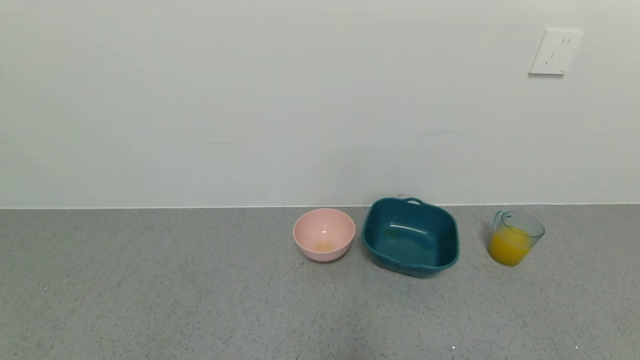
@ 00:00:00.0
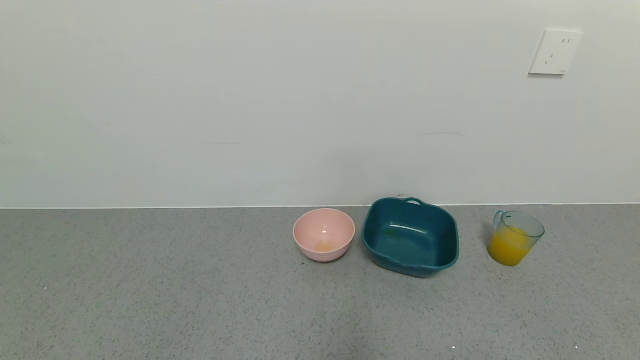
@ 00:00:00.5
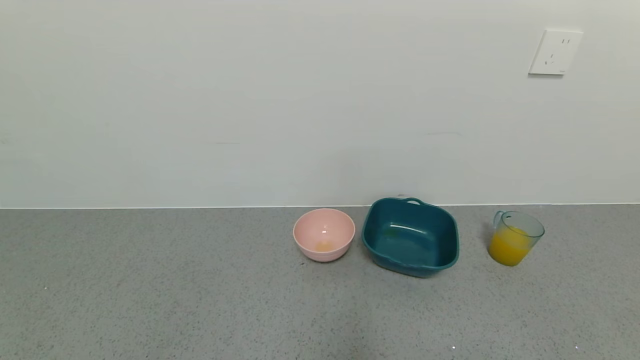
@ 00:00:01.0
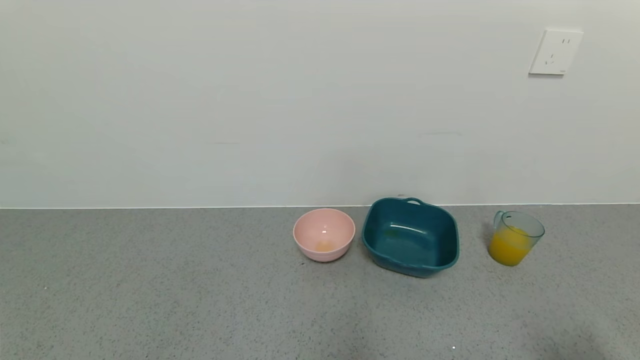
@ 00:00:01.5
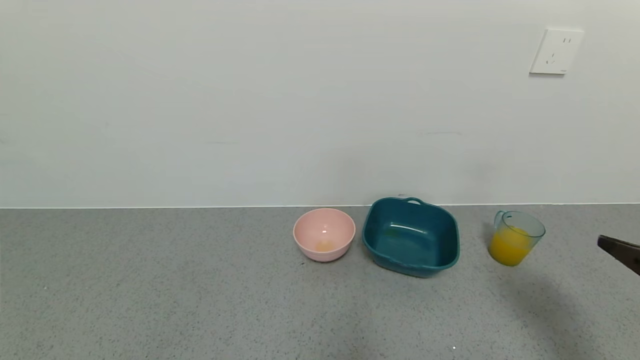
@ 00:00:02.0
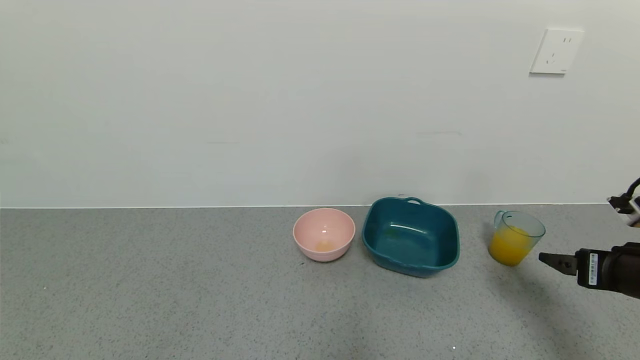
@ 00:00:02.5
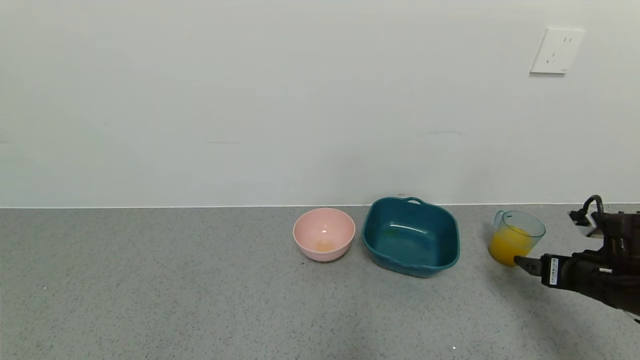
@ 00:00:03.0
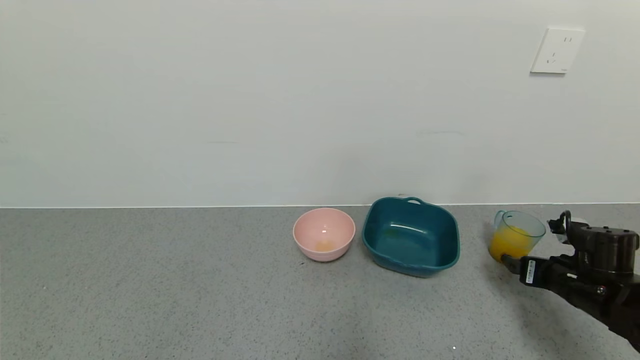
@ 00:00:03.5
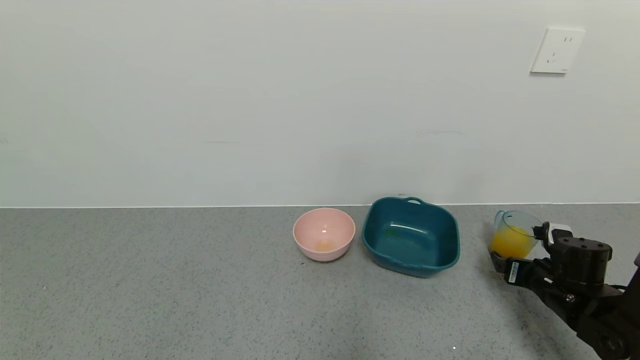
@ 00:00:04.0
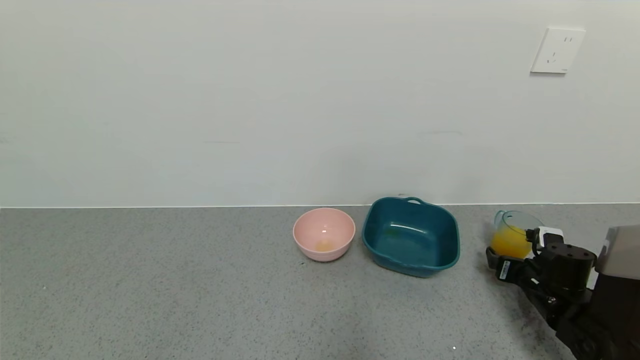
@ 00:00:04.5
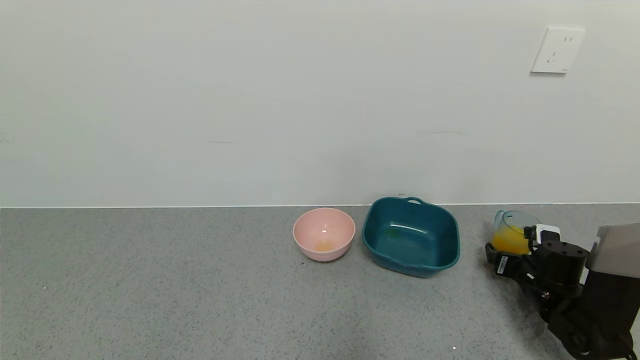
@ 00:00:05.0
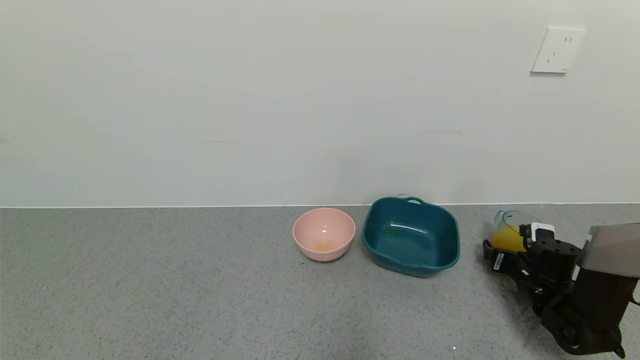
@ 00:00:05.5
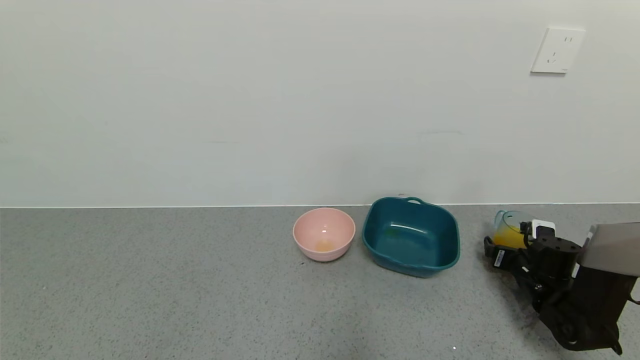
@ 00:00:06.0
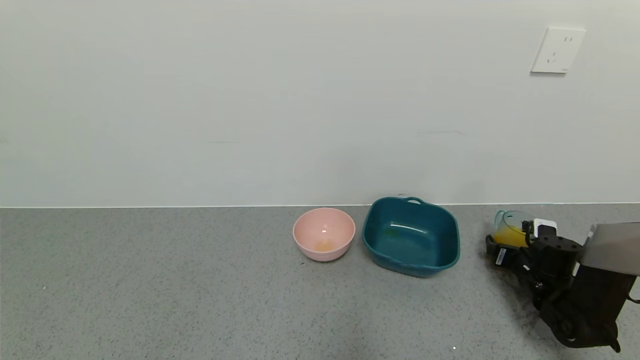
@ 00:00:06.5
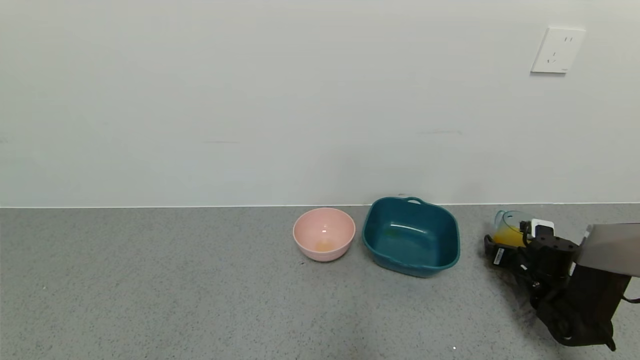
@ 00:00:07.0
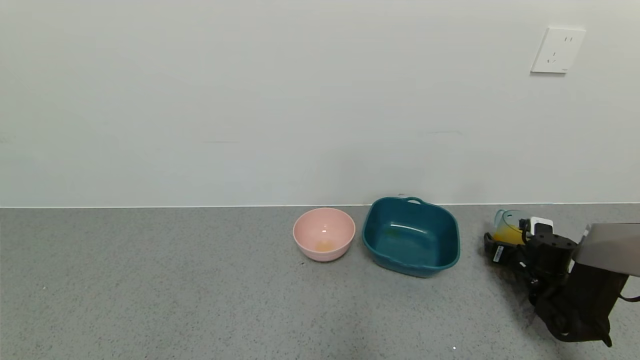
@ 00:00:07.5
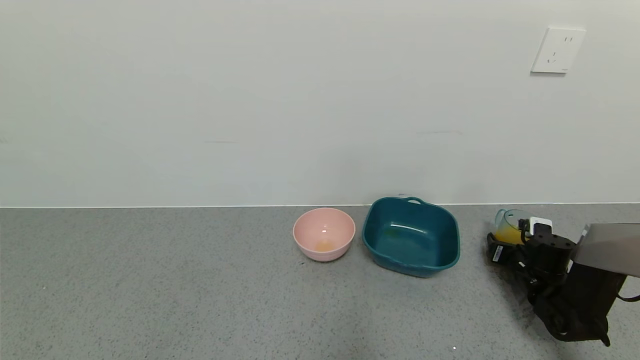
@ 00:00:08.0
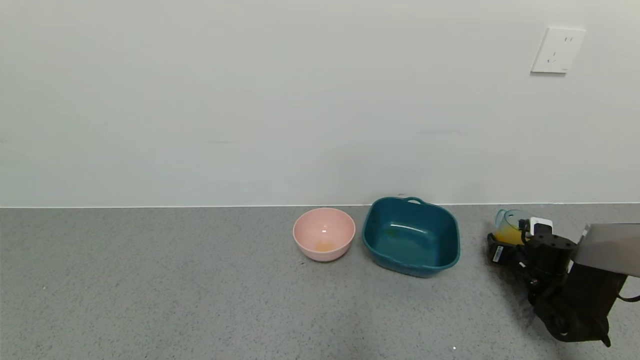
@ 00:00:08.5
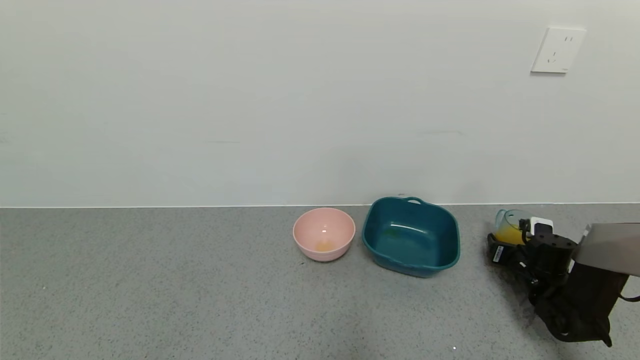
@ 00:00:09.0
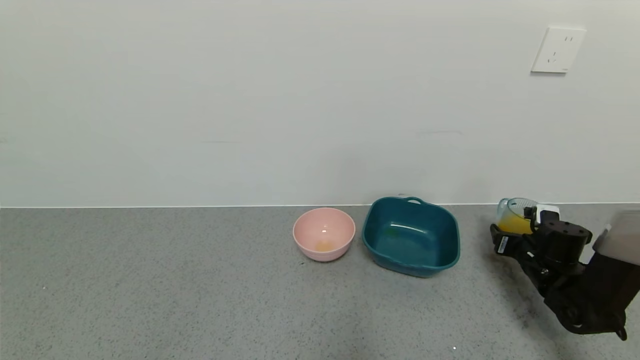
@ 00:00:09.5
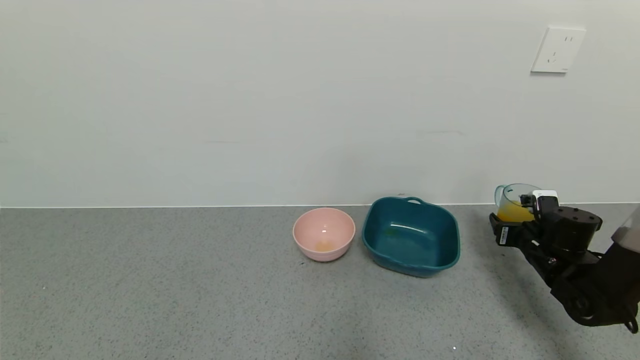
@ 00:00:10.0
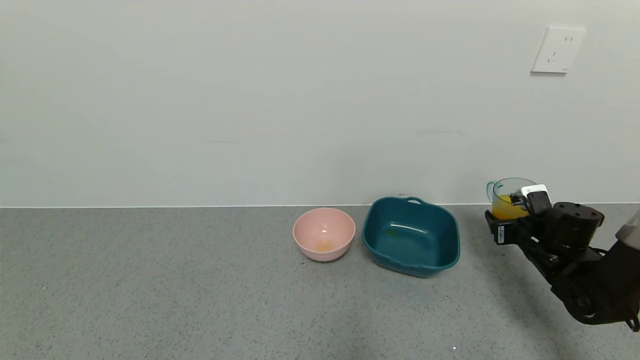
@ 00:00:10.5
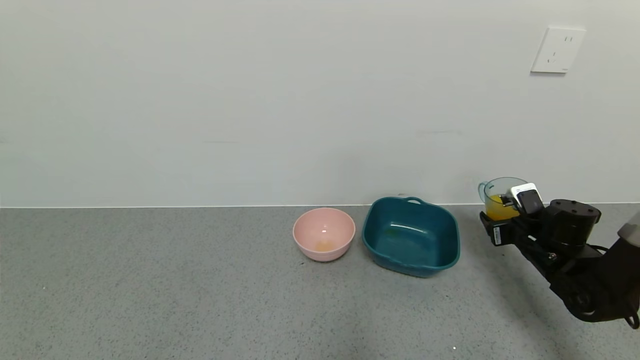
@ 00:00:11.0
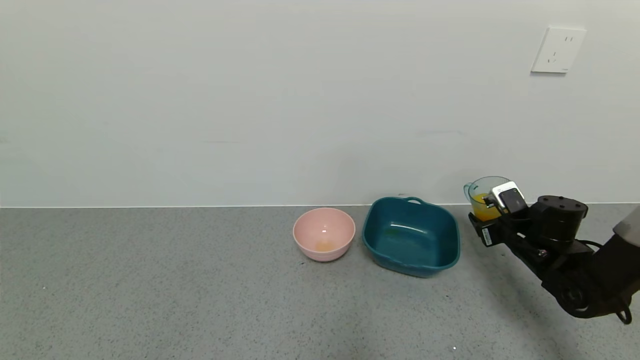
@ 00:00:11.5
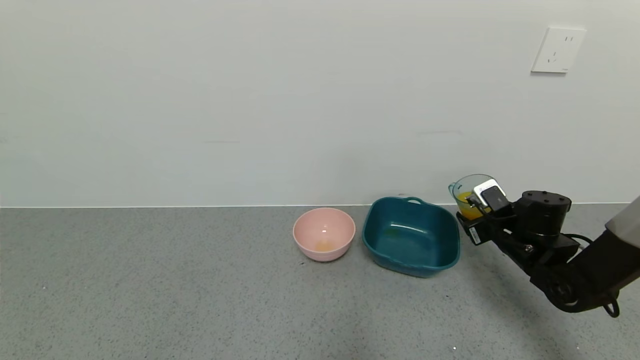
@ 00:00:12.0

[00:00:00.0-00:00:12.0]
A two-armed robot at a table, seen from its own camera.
Task of the whole recording: use a gripper to pick up the cup and pour the liquid into a bowl or tray.
Step, 00:00:00.0 to 00:00:08.5: Grasp the glass of orange juice with the right gripper.
00:00:00.0 to 00:00:02.0: The right gripper travels forward and upward by some 20 cm.
00:00:02.0 to 00:00:04.0: The right gripper shifts roughly 25 cm downward and forward.
00:00:04.0 to 00:00:06.0: The right gripper is displaced forward by about 5 cm.
00:00:06.0 to 00:00:08.0: The right gripper closes up.
00:00:08.0 to 00:00:10.0: The right gripper moves upward, about 5 cm.
00:00:10.0 to 00:00:12.0: The right gripper shifts about 5 cm to the left.

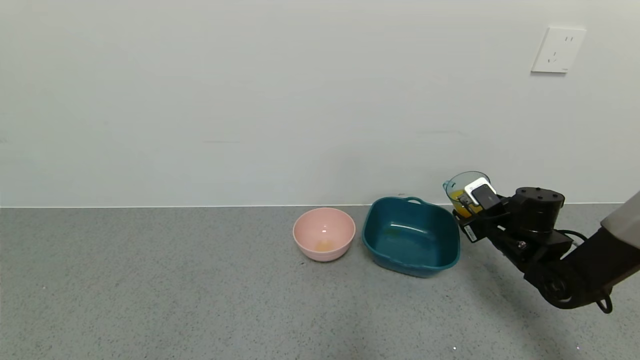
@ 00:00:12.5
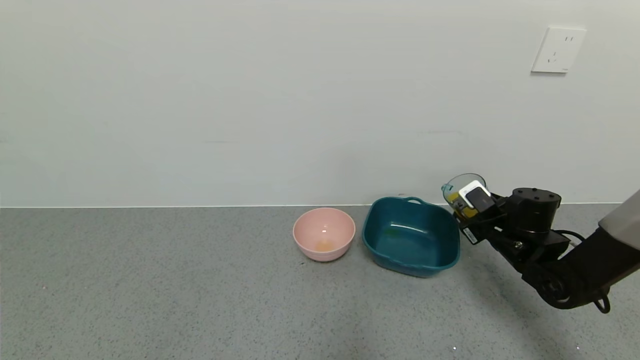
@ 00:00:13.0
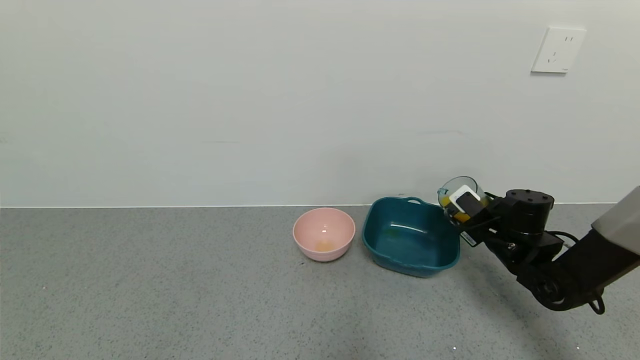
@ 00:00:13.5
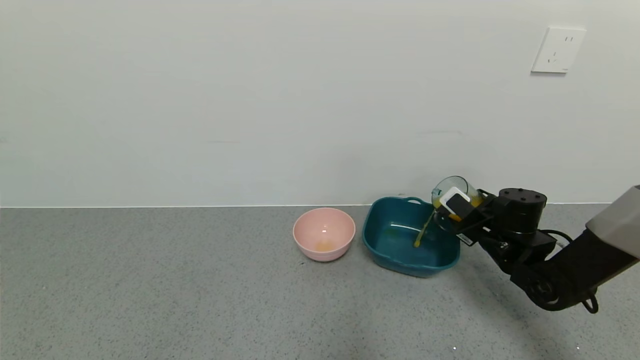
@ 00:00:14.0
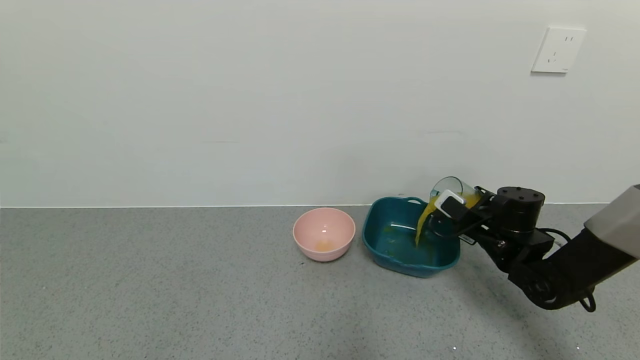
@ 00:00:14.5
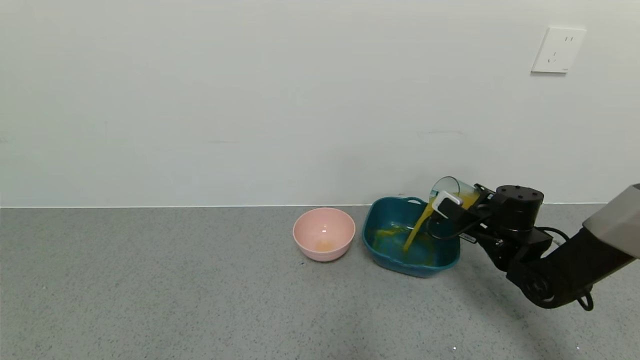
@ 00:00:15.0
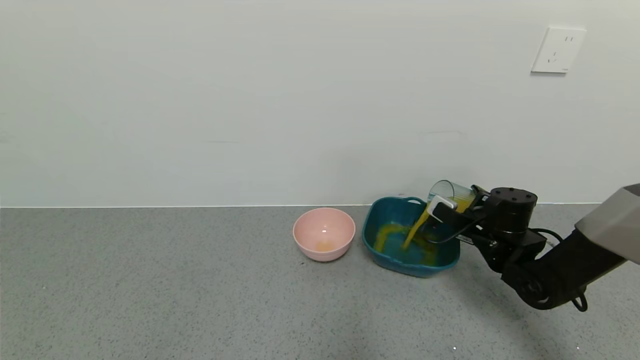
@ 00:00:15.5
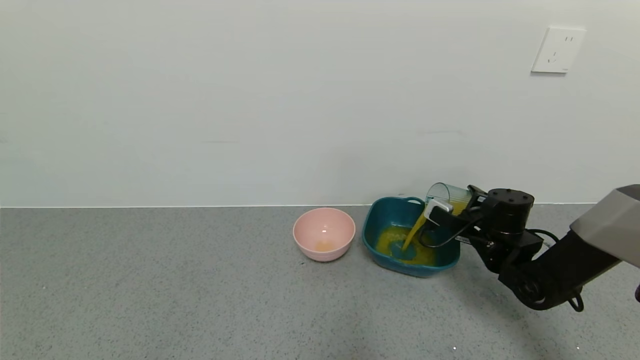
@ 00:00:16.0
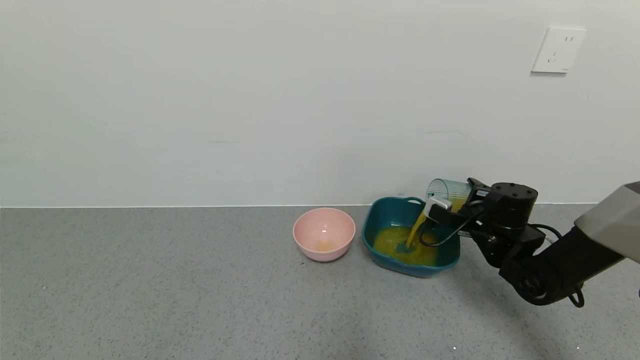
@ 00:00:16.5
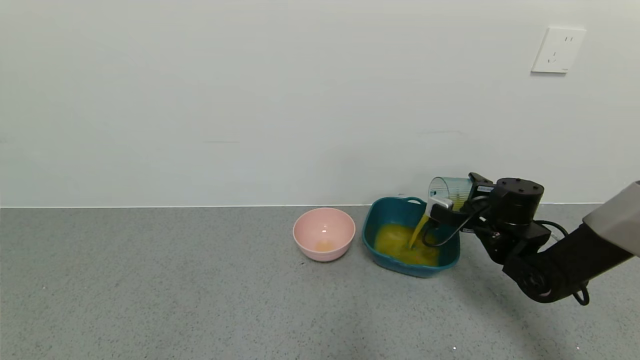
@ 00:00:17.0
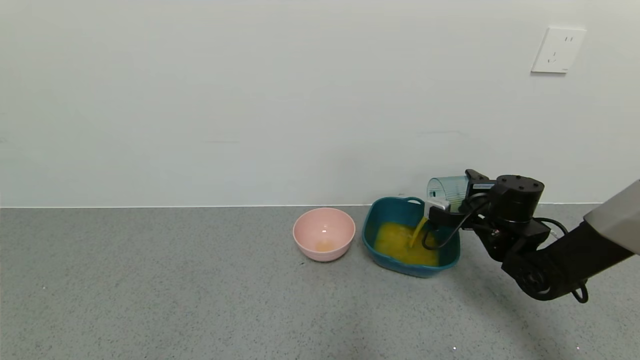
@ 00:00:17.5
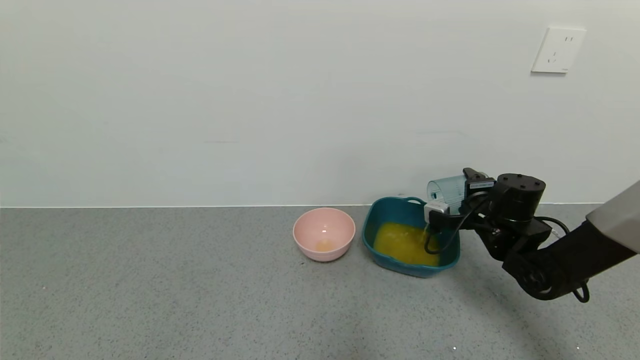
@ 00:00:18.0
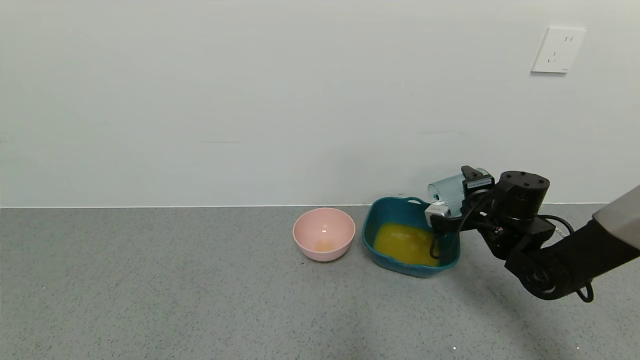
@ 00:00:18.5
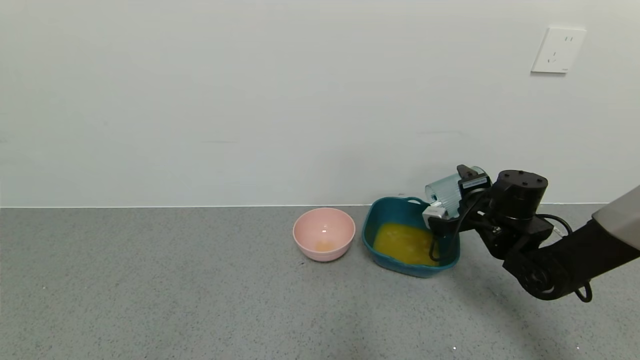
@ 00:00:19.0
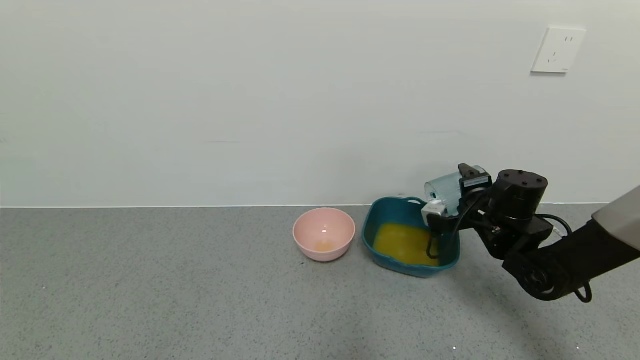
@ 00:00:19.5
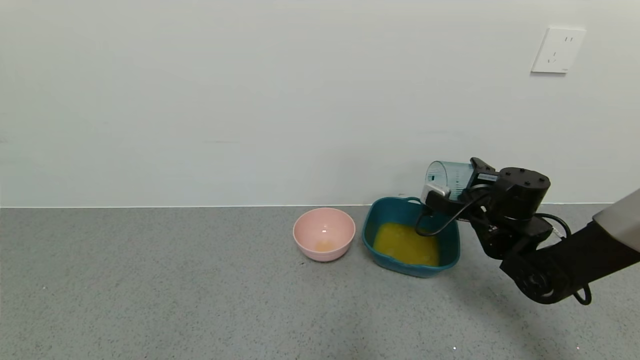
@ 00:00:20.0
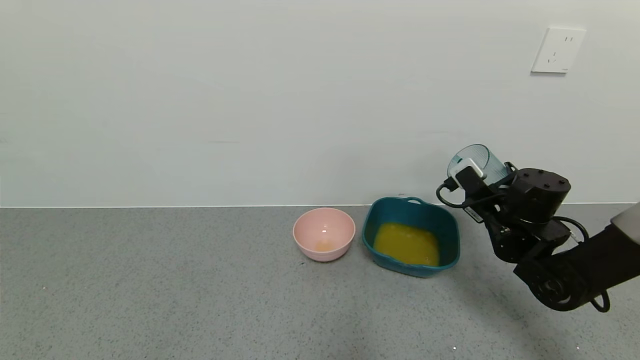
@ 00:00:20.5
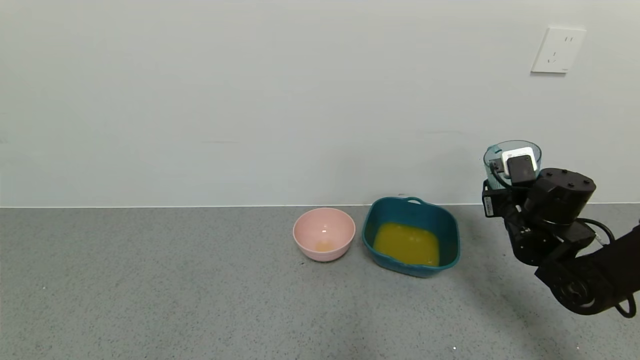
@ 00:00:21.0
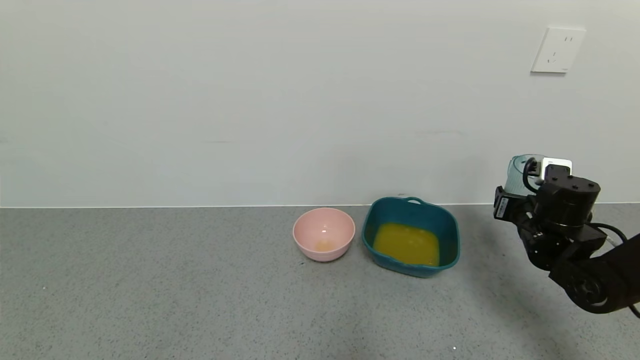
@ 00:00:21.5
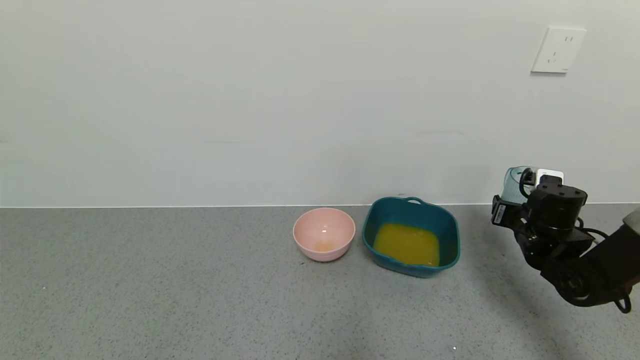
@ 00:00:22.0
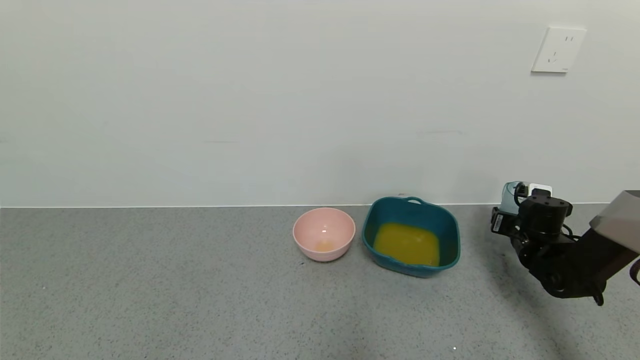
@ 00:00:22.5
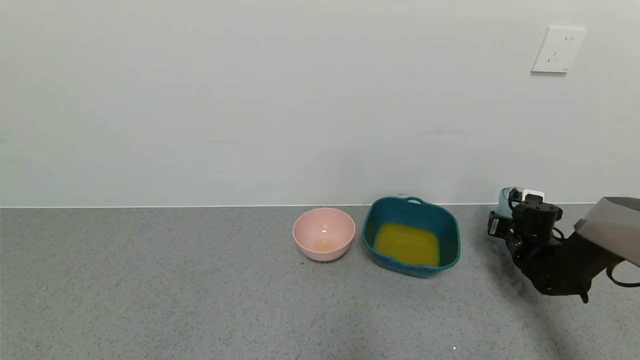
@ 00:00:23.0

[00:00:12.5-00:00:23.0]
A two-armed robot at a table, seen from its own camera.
Task of the whole recording: use a gripper to pick up the cup and pour the liquid into a bowl or tray.
Step, 00:00:12.5 to 00:00:19.5: Pour the orange juice into the green bowl with the right gripper.
00:00:21.0 to 00:00:23.0: The right gripper travels downward, to the right and forward by roughly 15 cm.
